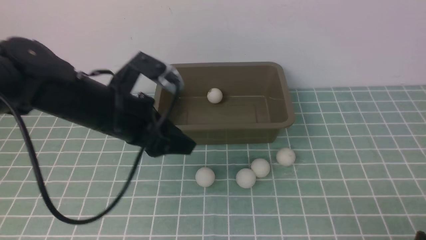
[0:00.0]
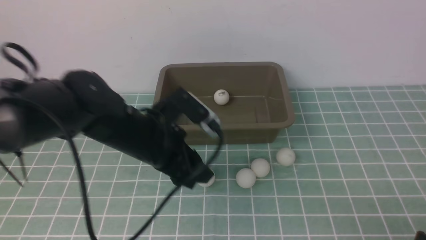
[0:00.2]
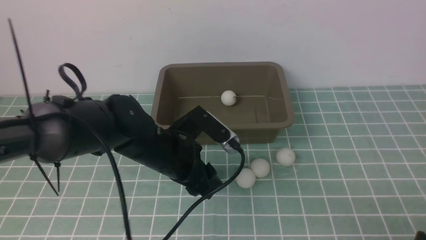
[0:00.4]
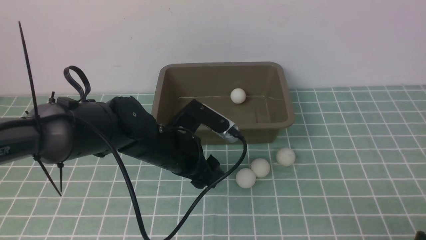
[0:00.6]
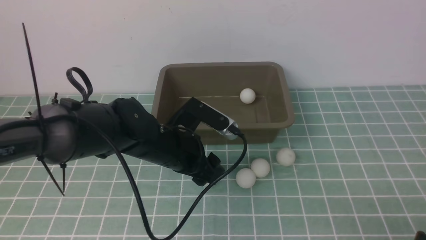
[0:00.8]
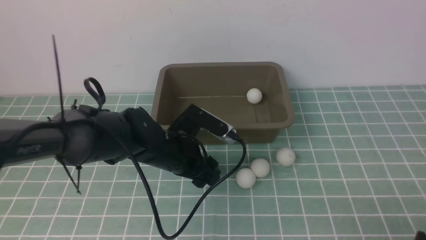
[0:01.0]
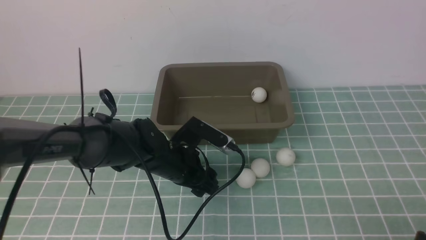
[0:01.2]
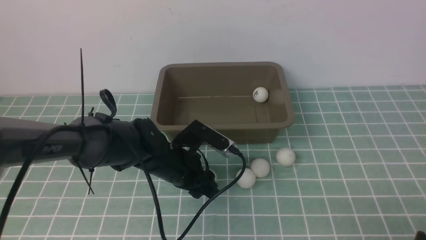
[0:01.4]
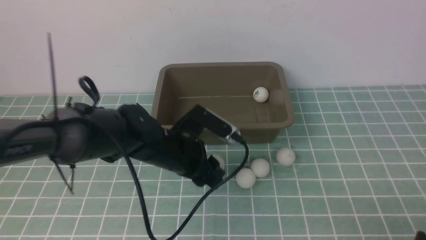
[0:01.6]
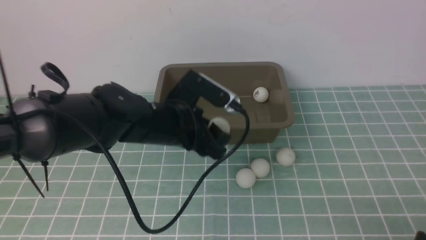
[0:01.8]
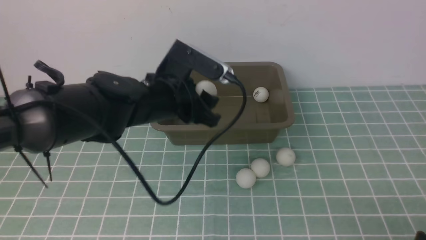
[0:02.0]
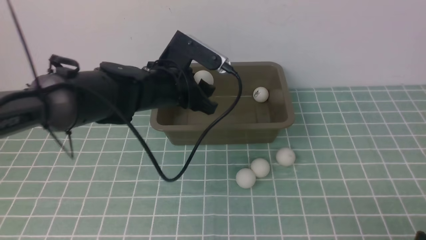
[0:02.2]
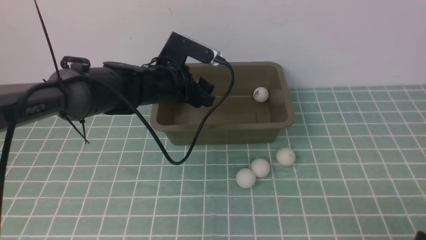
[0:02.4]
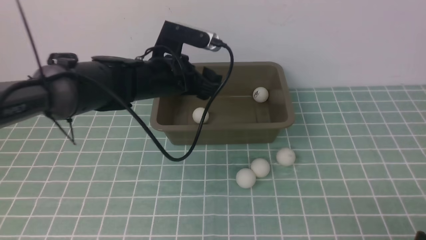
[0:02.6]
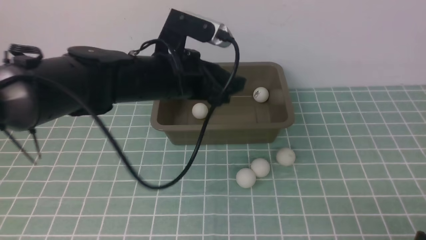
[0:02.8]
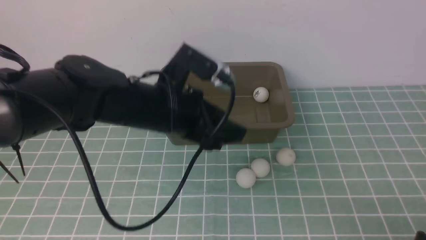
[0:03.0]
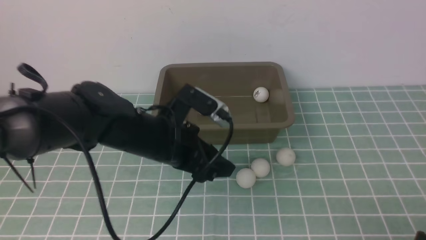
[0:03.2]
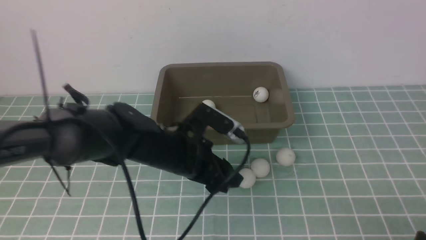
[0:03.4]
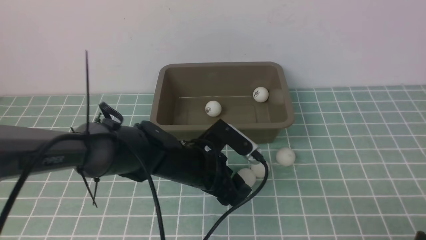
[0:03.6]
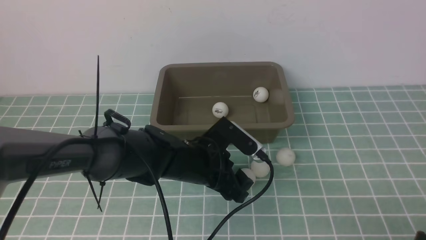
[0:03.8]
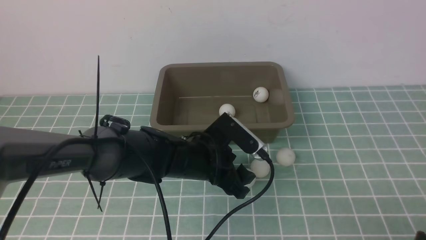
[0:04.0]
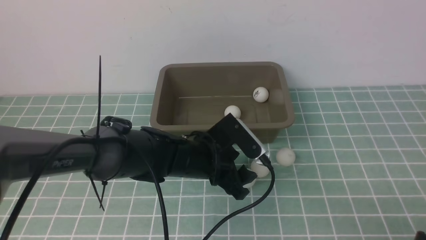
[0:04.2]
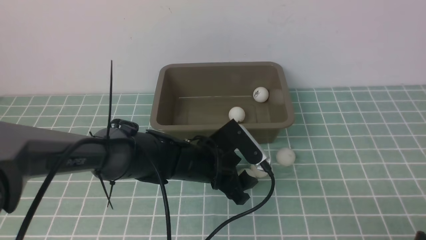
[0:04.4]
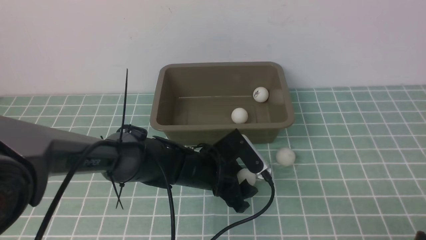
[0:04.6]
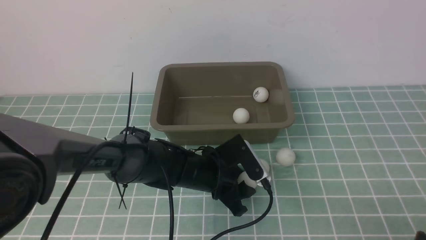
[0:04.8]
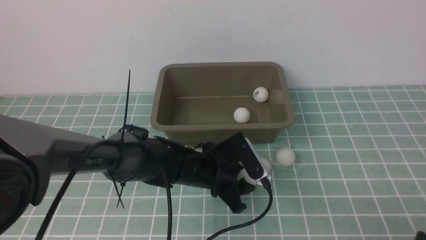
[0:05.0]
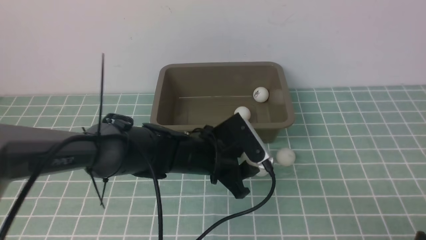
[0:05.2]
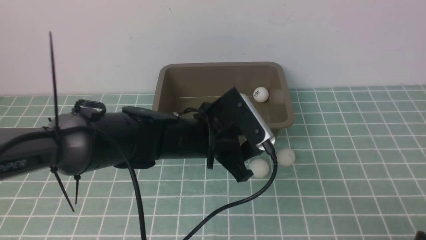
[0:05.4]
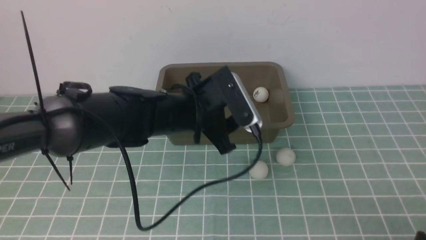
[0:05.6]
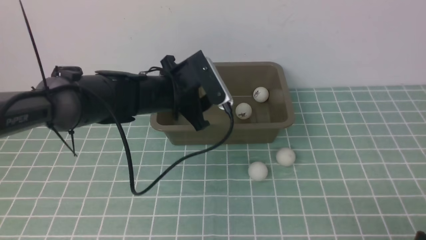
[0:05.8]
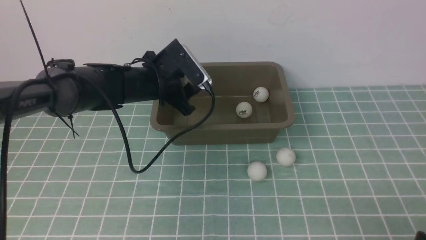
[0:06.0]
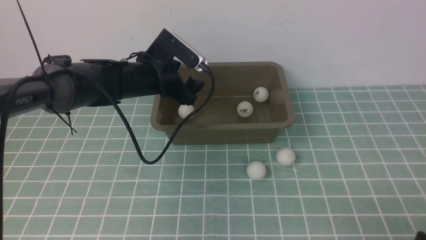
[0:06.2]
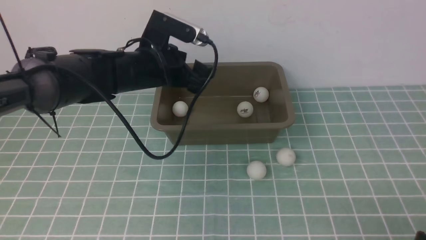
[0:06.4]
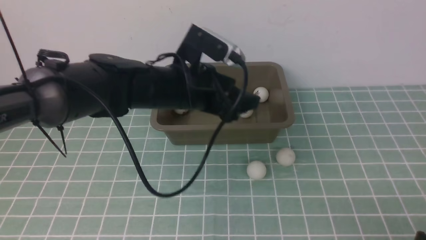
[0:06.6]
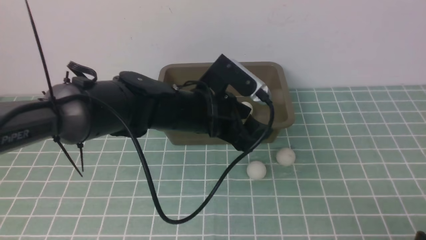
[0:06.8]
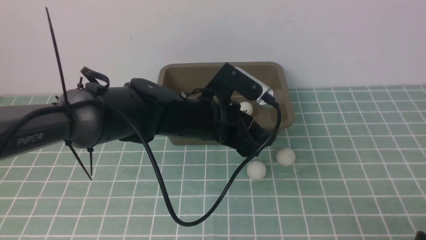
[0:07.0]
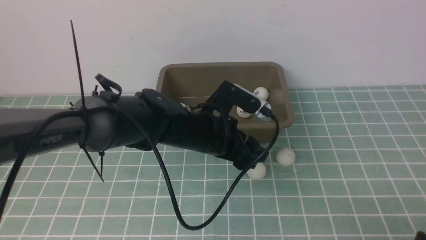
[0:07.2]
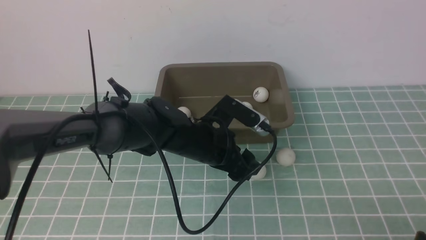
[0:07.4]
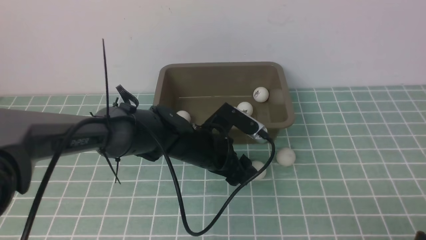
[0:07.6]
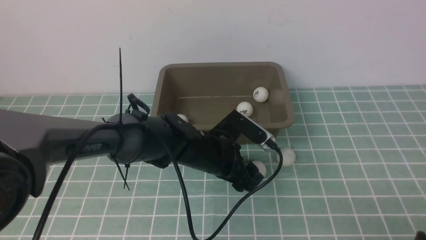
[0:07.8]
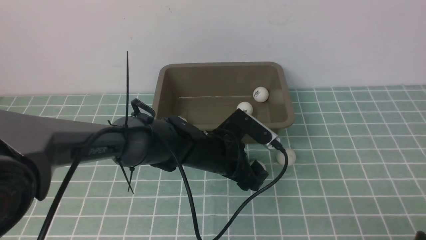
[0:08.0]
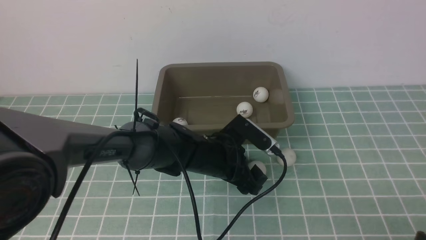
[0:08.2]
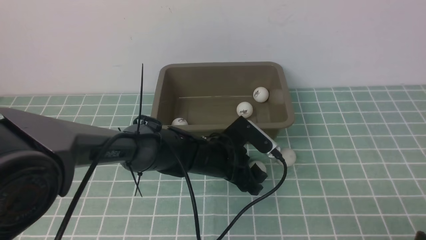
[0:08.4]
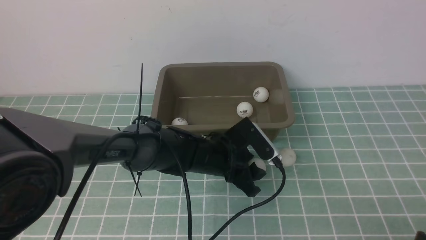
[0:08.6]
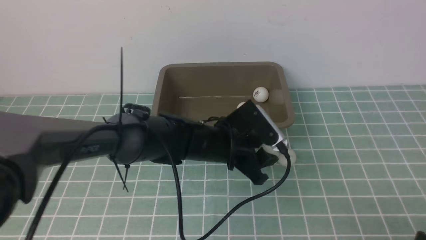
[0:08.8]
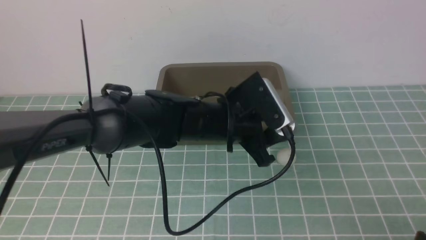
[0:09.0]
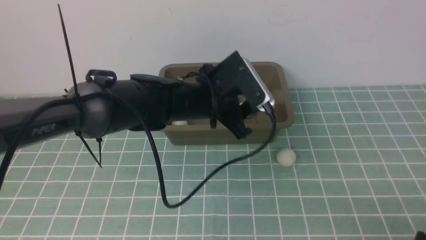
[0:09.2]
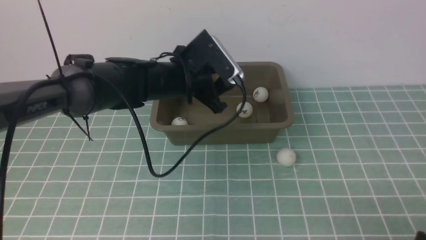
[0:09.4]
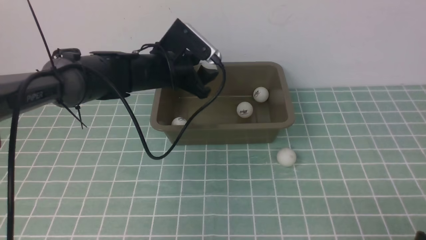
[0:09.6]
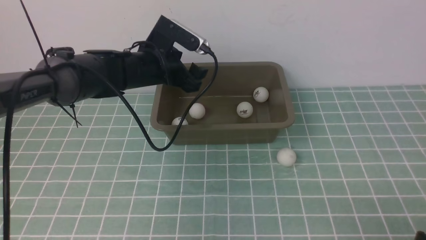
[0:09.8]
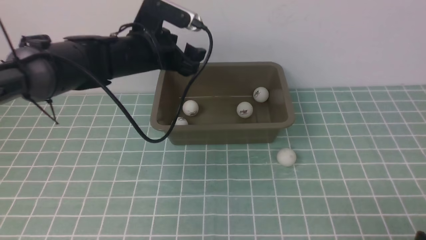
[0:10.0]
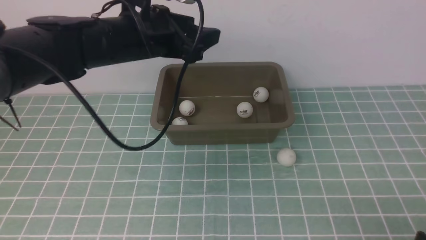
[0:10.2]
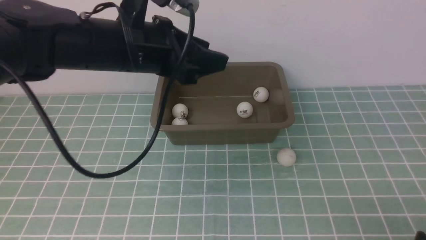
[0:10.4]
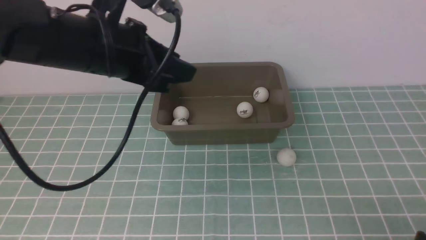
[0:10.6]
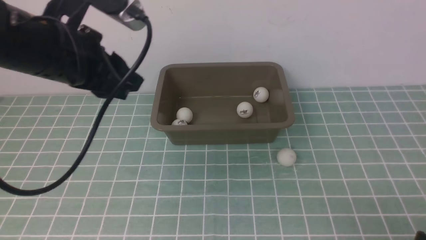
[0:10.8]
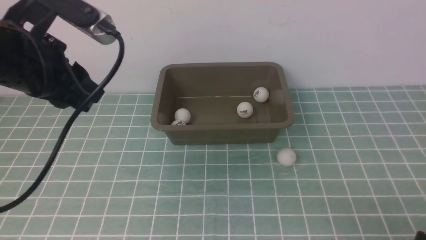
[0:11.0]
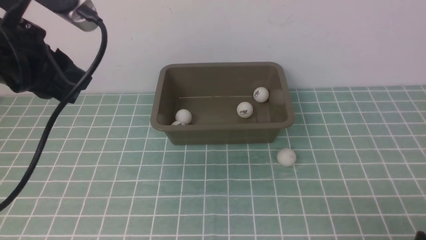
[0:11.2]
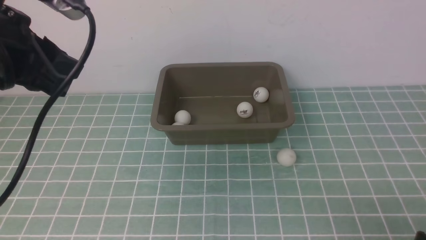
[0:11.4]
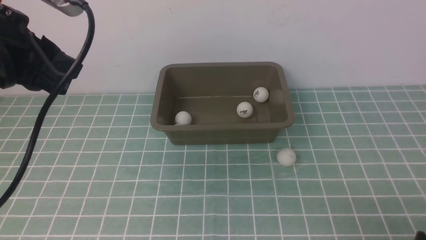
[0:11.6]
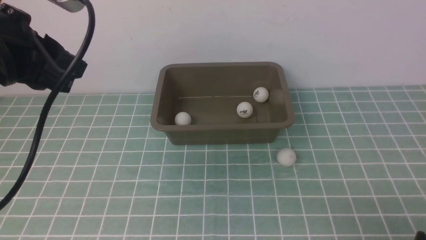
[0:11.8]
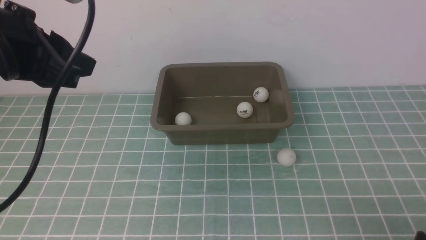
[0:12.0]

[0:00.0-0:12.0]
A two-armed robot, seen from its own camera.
Step, 0:00.0 to 0:01.6: use the left arm to clamp the table tennis ball closest to it.
Step, 0:01.8 to 0:02.4: use the left arm to put the table tennis ball into the box.
Step, 0:02.8 to 0:05.0: use the left arm to clamp the table tennis ball closest to it.
Step, 0:05.2 to 0:06.2: use the left arm to put the table tennis ball into the box.
Step, 0:06.4 to 0:08.6: use the left arm to clamp the table tennis ball closest to it.
Step, 0:08.8 to 0:09.8: use the left arm to put the table tennis ball into the box.
0:00.0 to 0:01.6: The left gripper moves approximately 10 cm downward and comes back.
0:03.0 to 0:04.4: The left gripper shifts roughly 15 cm downward and to the right.
0:04.4 to 0:06.0: The left gripper is displaced forward, upward and to the left by roughly 20 cm.
0:06.0 to 0:07.6: The left gripper travels to the right, backward and downward by some 15 cm.
0:07.6 to 0:09.0: The left gripper goes some 5 cm upward, and closes its fingers.
0:09.0 to 0:10.4: The left gripper moves upward and to the left, some 15 cm, and opens and closes again.
0:10.4 to 0:12.0: The left gripper goes roughly 15 cm backward, to the left and upward, and closes up.

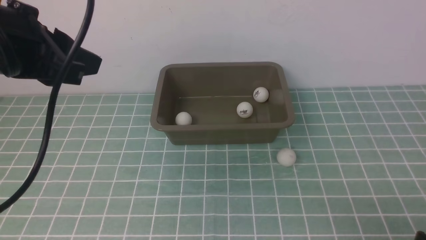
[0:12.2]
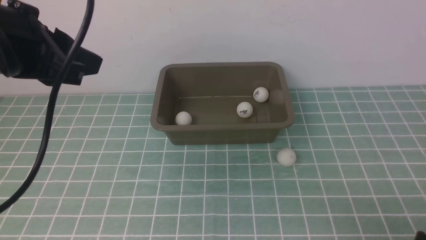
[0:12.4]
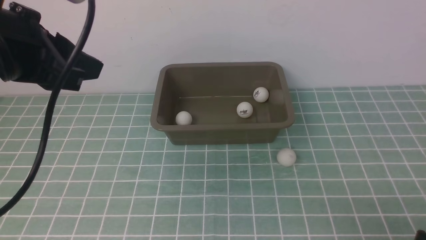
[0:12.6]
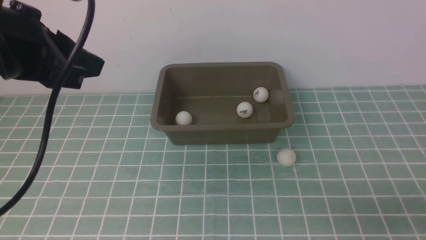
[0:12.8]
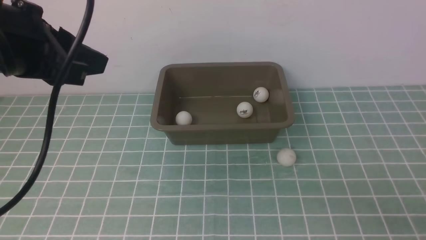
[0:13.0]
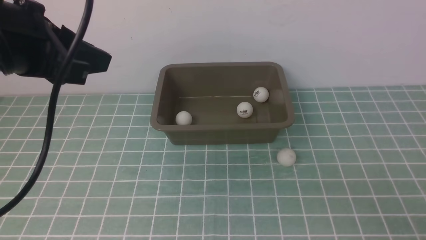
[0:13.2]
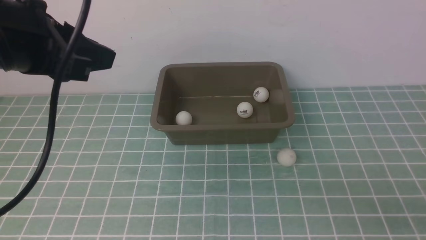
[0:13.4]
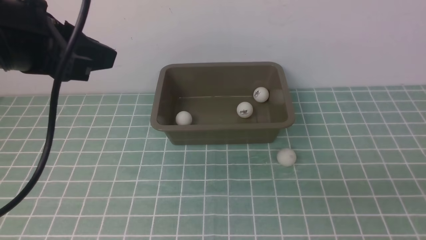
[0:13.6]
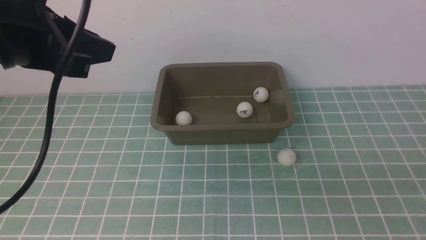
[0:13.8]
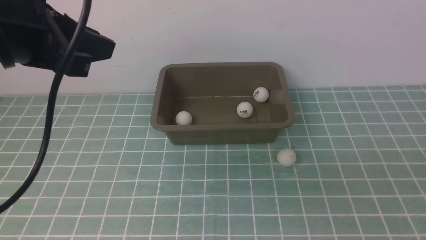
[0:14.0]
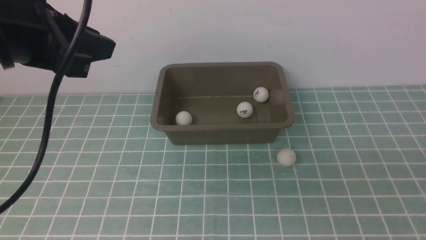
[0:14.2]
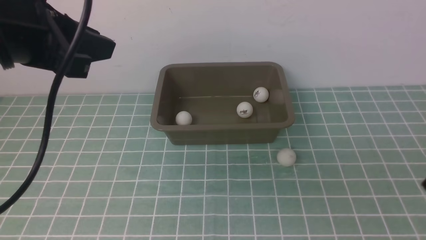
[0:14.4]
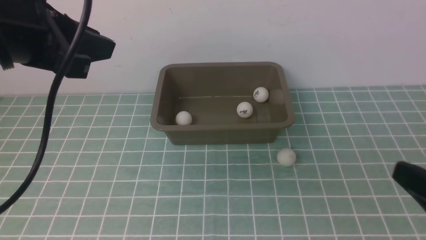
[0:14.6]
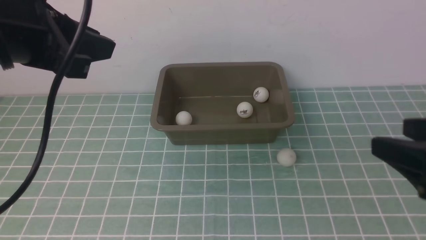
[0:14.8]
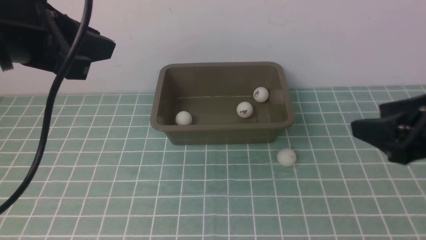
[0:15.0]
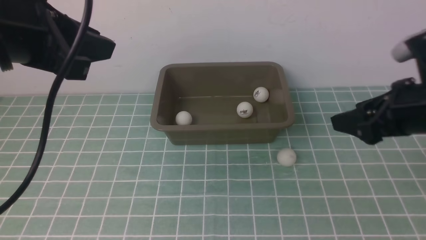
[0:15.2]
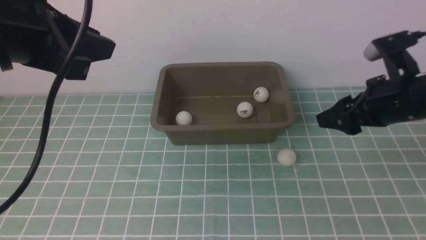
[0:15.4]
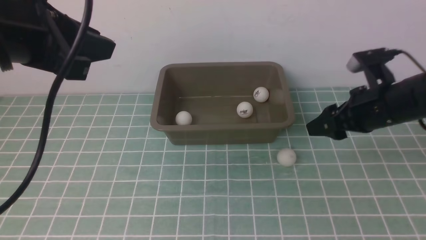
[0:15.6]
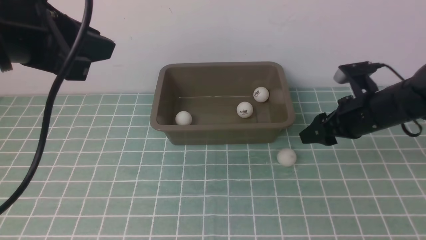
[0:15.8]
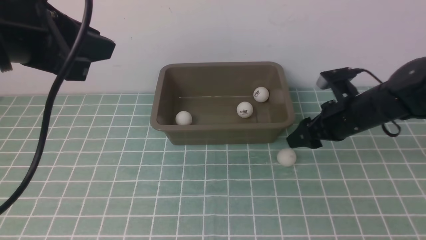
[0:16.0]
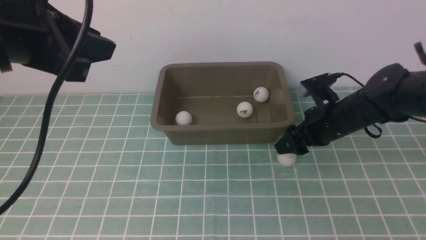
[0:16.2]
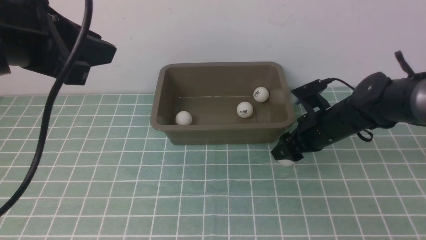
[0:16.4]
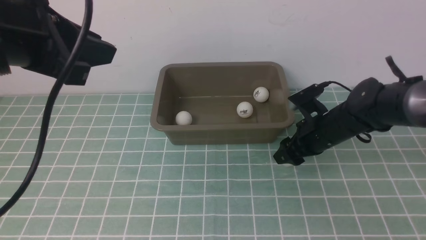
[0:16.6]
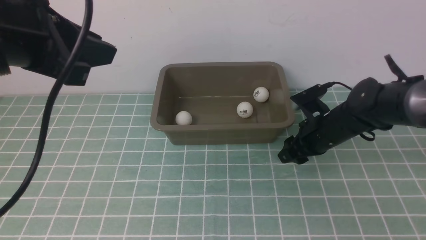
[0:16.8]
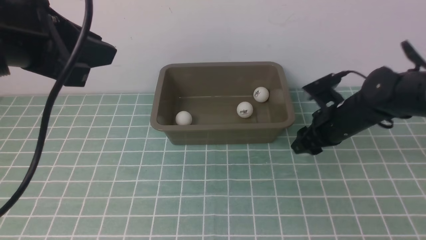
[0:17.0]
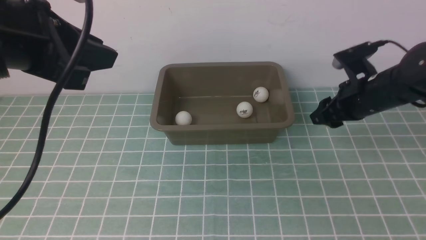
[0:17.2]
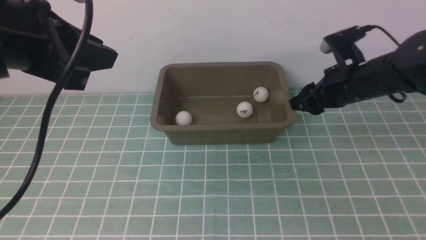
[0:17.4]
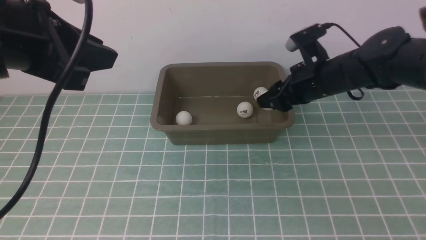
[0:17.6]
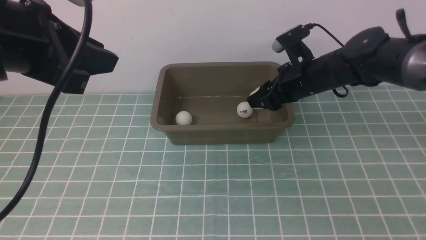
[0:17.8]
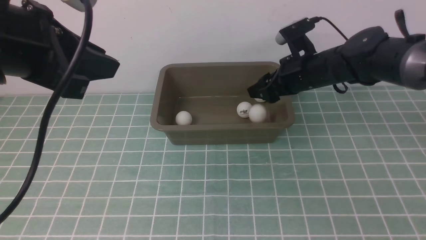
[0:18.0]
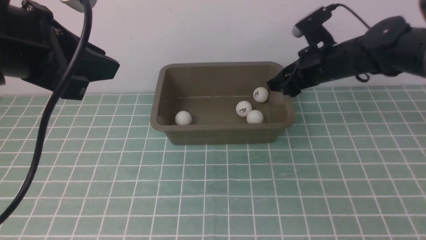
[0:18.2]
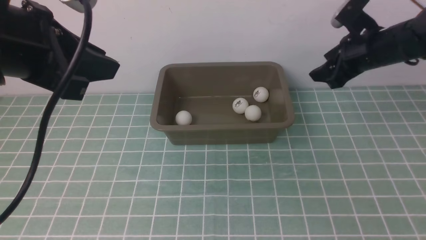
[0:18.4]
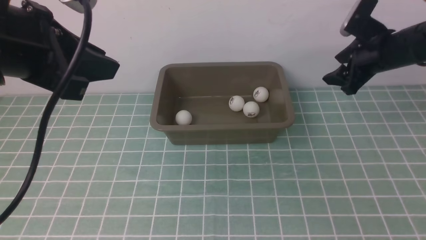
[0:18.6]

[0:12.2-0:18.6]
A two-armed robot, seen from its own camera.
Step, 0:12.2 to 0:17.0: use the right arm to clamp the table tennis ball closest to it.
Step, 0:17.2 to 0:18.0: use the right arm to put the table tennis ball into the box.
0:13.8 to 0:15.4: The right gripper shifts some 25 cm forward.
0:15.4 to 0:17.0: The right gripper shifts approximately 10 cm downward and forward, and closes.
0:17.0 to 0:18.6: The right gripper is displaced forward, upward and to the right by some 10 cm, and opens.
